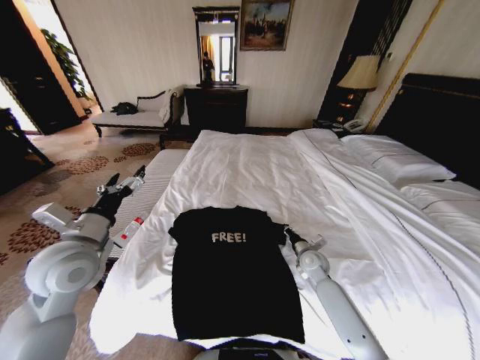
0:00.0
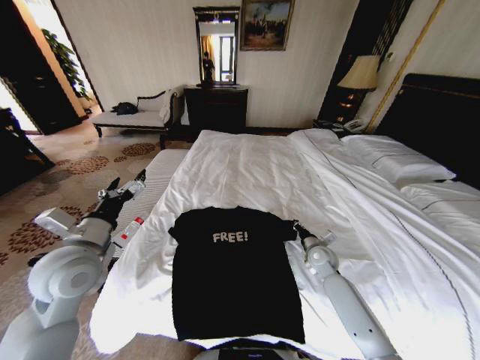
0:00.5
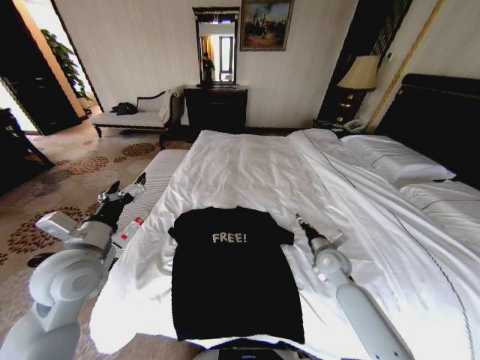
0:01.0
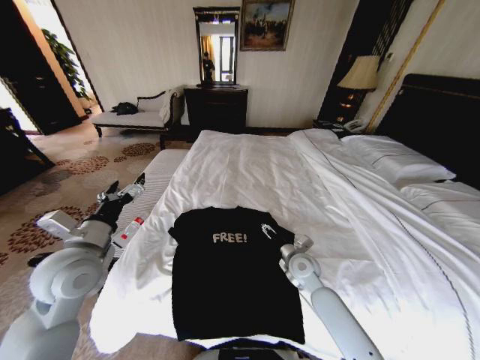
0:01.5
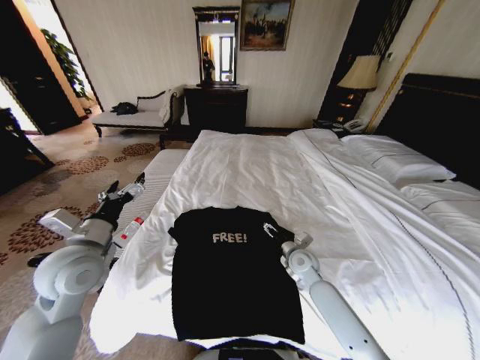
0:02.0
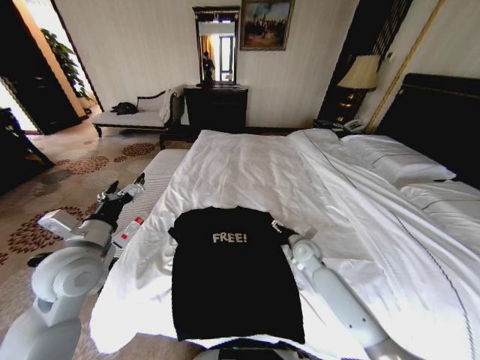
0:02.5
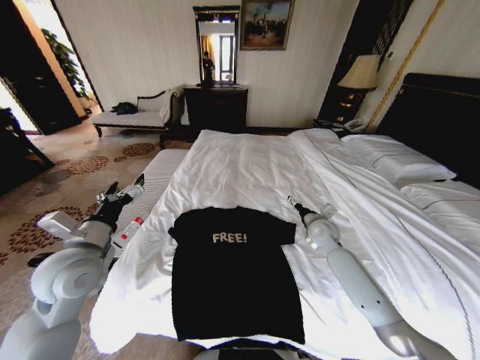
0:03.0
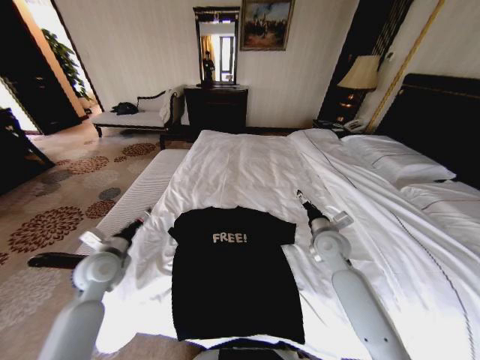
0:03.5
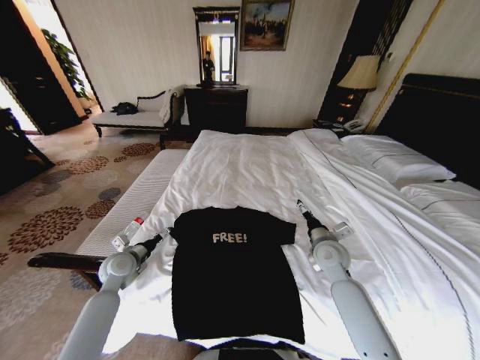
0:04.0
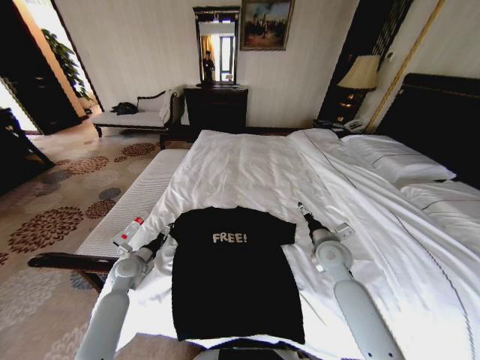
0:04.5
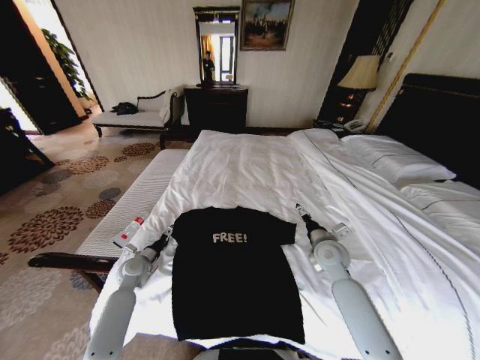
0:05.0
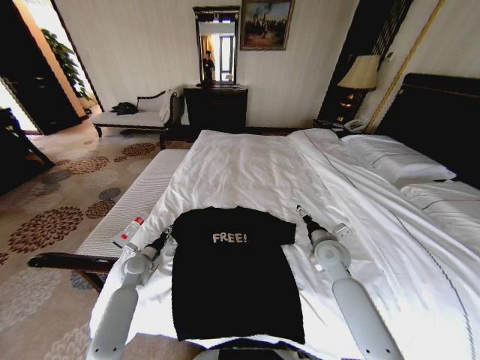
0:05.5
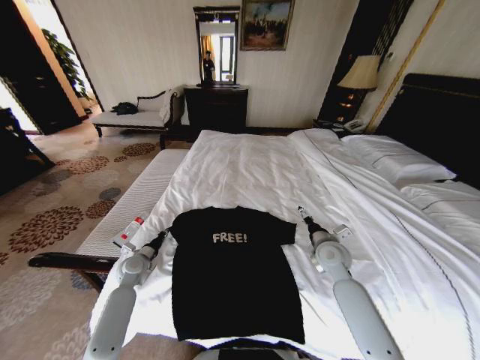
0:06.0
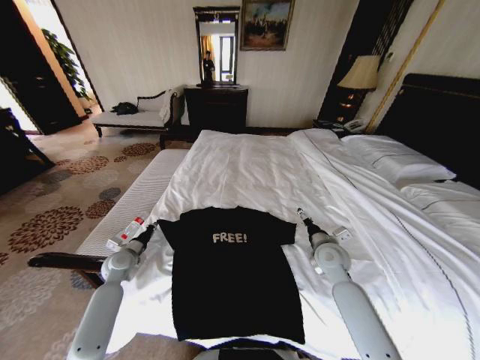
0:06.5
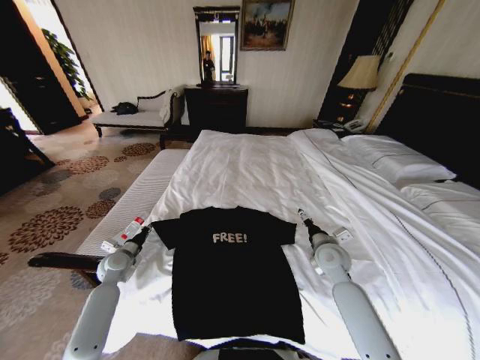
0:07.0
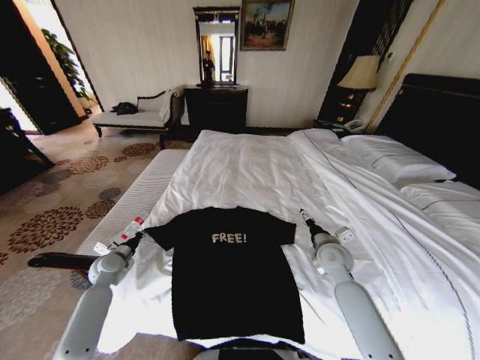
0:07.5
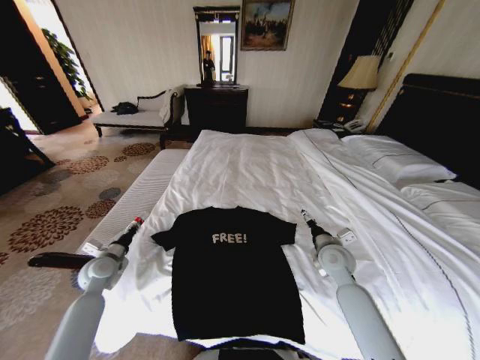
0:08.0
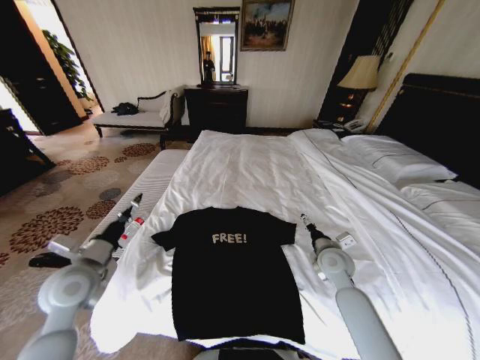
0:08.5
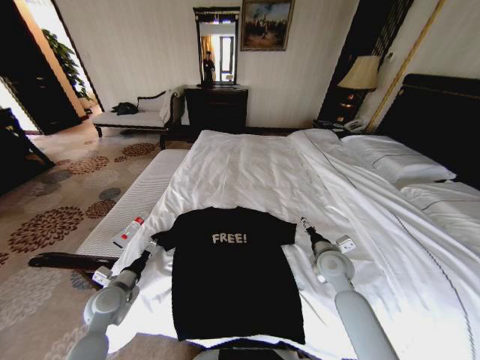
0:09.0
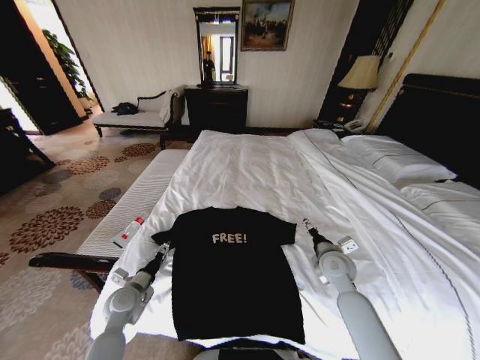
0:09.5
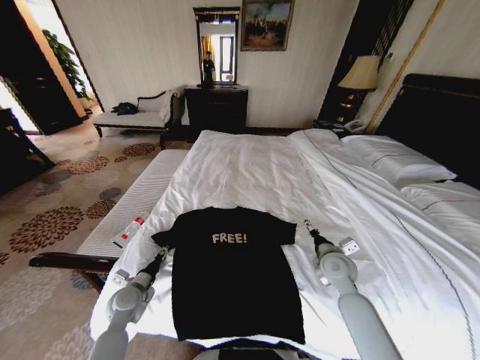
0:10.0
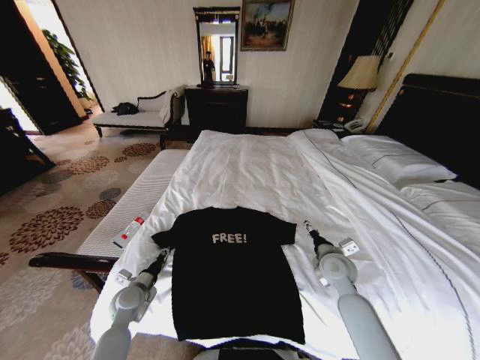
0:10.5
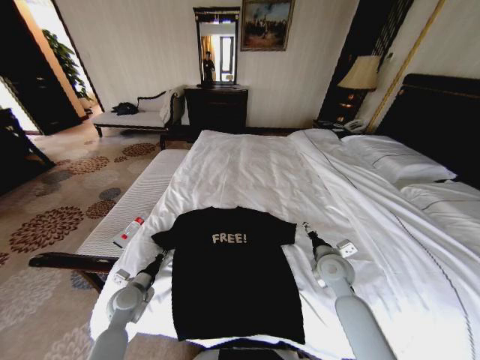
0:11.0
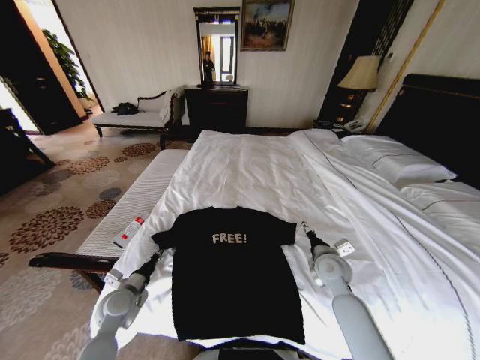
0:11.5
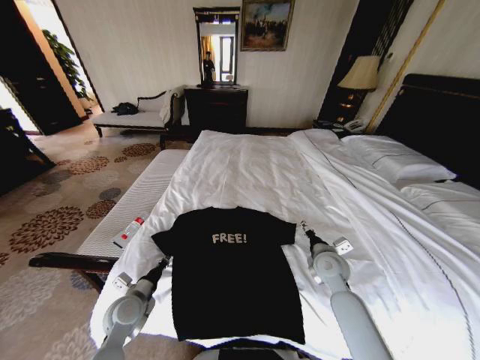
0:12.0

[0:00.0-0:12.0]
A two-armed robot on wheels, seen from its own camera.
Task of the whole recording: Fold the clothes on the bed.
0:00.0 to 0:02.0: The right gripper is displaced to the left by approximately 5 cm, and opens up.
0:02.0 to 0:04.0: The right gripper shifts approximately 10 cm upward and to the right, while the left gripper is displaced downward and forward by some 20 cm.
0:04.0 to 0:06.0: The left gripper heads downward, covering roughly 10 cm, and closes.
0:06.0 to 0:08.0: The left gripper travels to the left and upward by approximately 10 cm.
0:08.0 to 0:10.0: The left gripper moves to the right and backward, some 10 cm, goes upward and returns, some 10 cm each way, and opens, then closes again.
0:10.0 to 0:12.0: The left gripper closes its fingers.

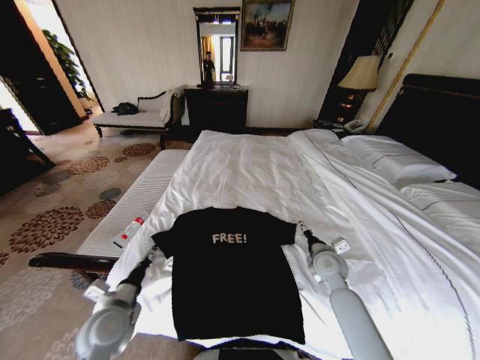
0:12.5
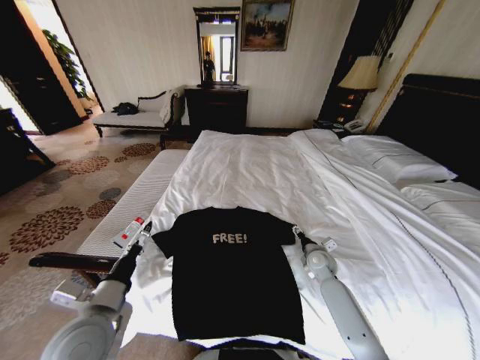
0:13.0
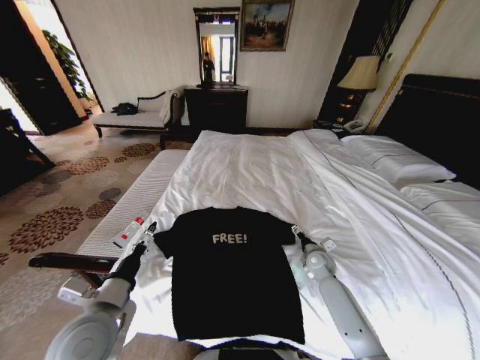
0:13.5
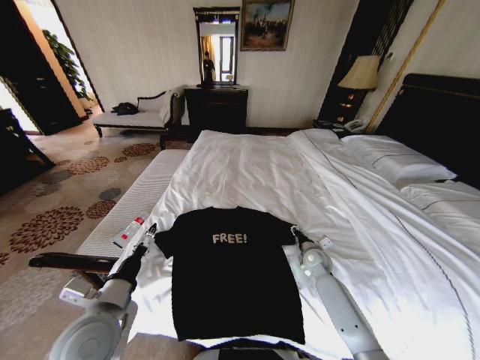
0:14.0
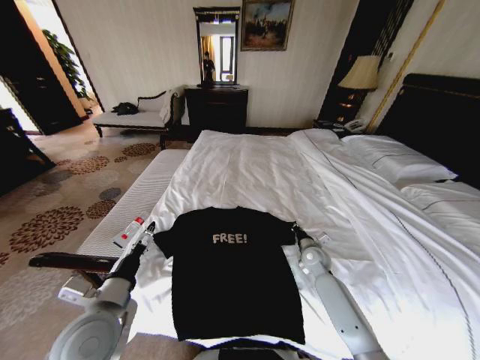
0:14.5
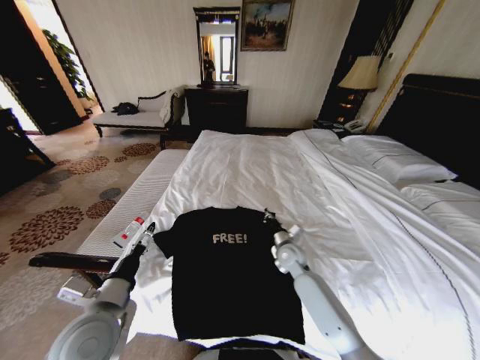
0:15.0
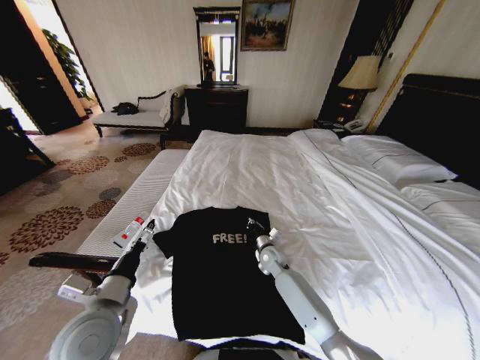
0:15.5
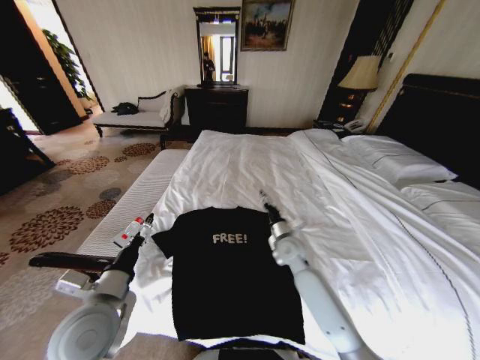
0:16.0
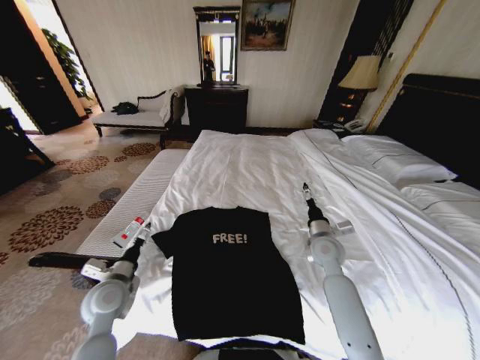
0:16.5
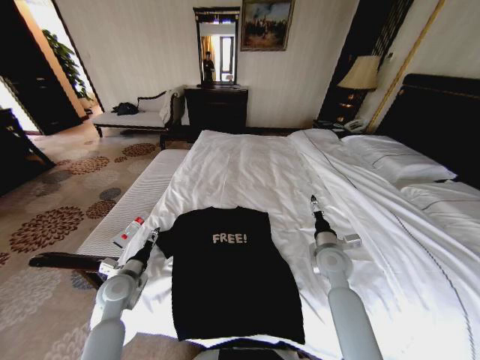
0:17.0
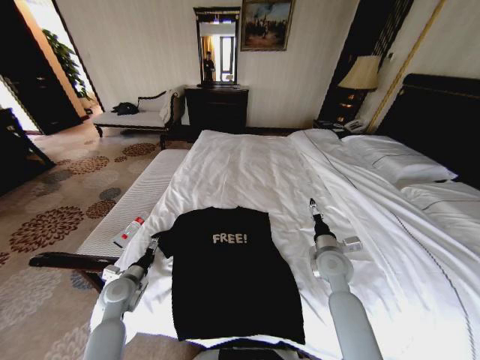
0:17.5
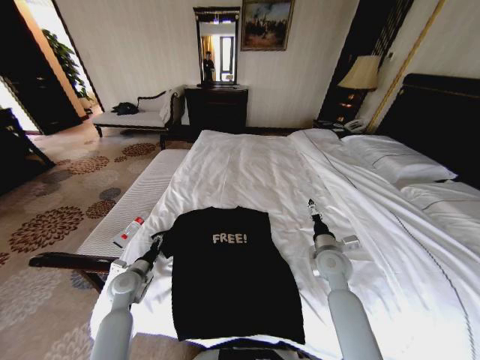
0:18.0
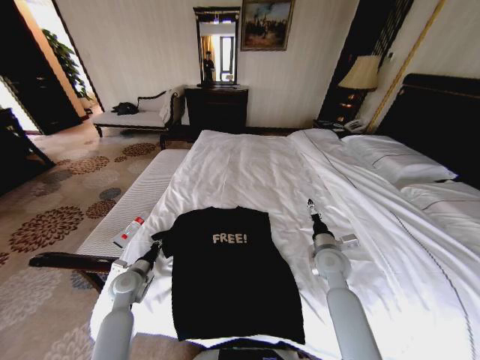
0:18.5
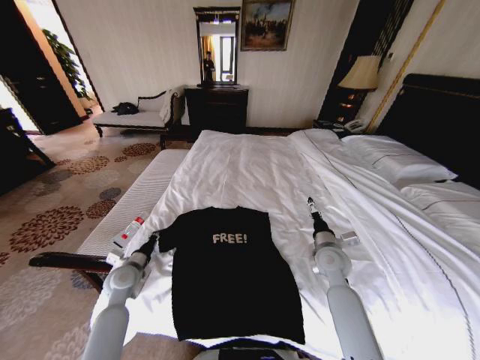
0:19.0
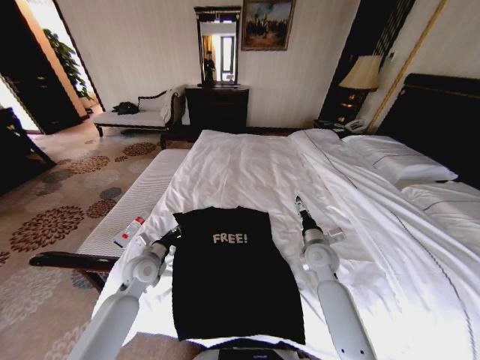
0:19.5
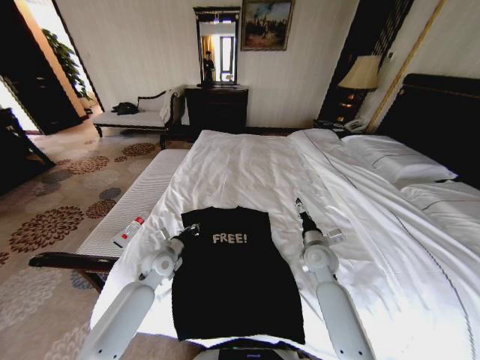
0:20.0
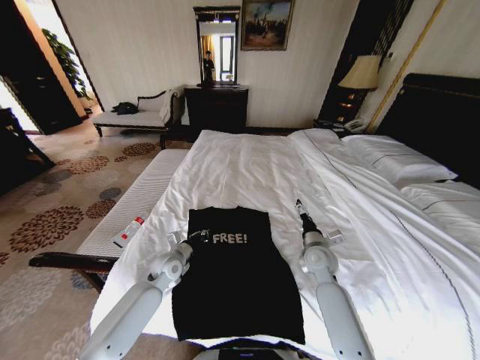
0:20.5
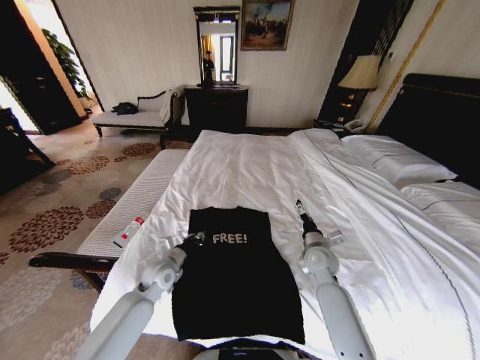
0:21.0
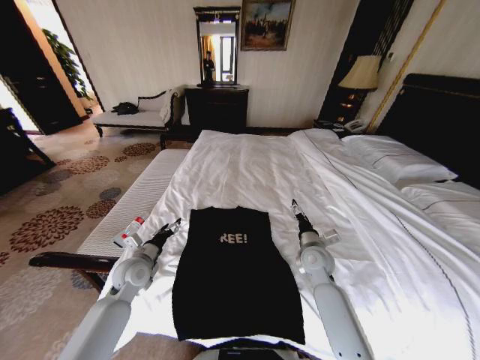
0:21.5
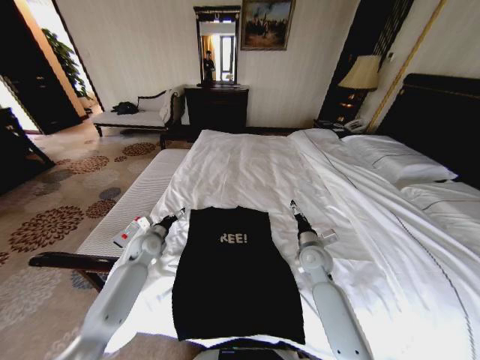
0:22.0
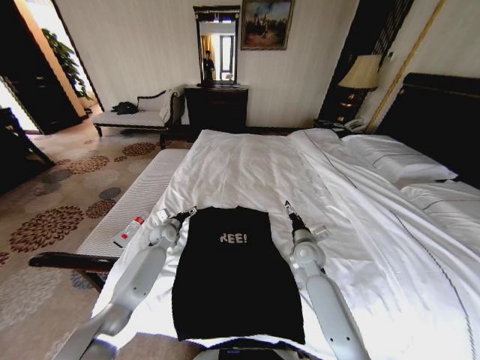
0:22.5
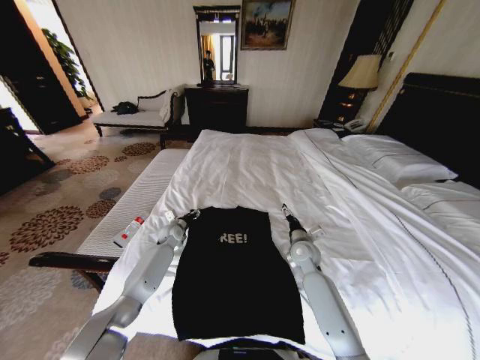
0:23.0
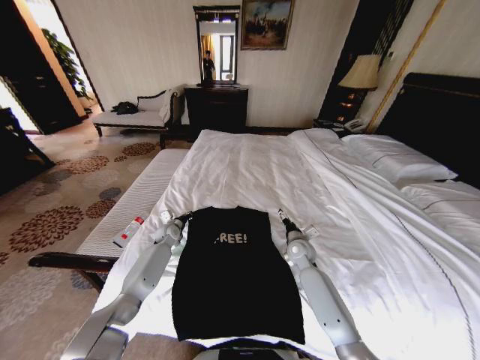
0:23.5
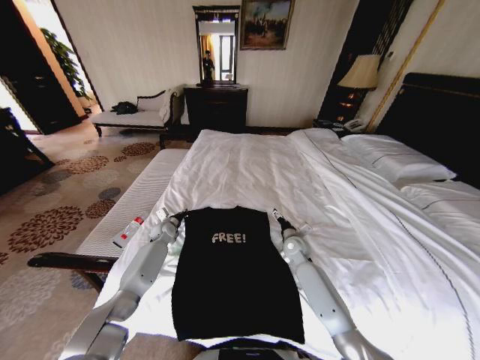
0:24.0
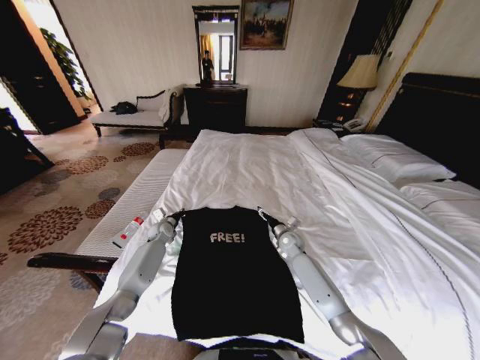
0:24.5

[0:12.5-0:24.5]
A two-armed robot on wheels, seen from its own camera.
Task of the whole recording: Fold the clothes on the bed.
0:12.5 to 0:14.5: The left gripper goes approximately 10 cm upward, and opens. Meanwhile the right gripper is displaced downward and forward by about 10 cm, and closes.
0:14.5 to 0:16.5: The left gripper travels forward, downward and to the left by some 15 cm, while the right gripper heads upward, covering approximately 10 cm, travels to the left and back again, some 15 cm each way, and opens.
0:16.5 to 0:18.5: The left gripper moves downward and forward, about 10 cm, and closes its fingers.
0:18.5 to 0:20.5: The left gripper moves to the right and forward, some 15 cm.
0:20.5 to 0:22.5: The left gripper heads forward, covering approximately 15 cm, and opens its fingers.
0:22.5 to 0:24.5: The left gripper changes place by roughly 5 cm, and closes, while the right gripper moves forward and downward, approximately 10 cm.

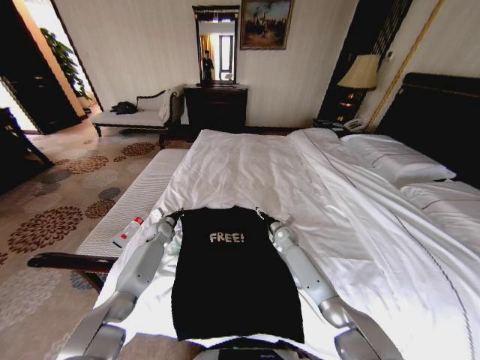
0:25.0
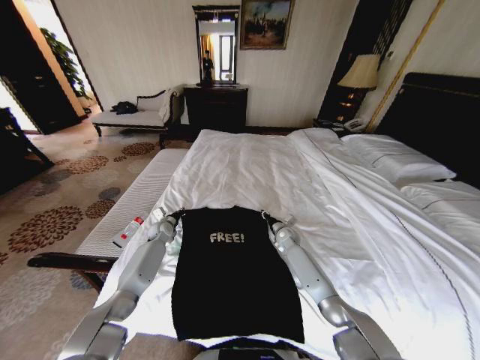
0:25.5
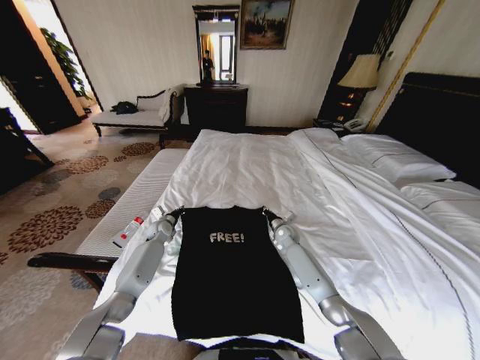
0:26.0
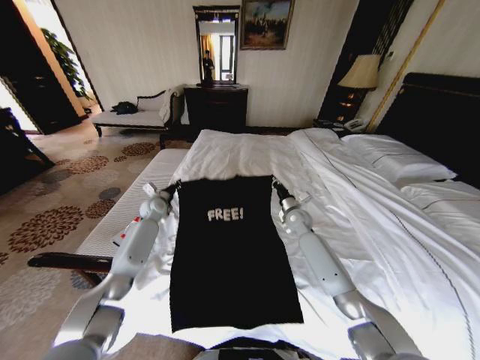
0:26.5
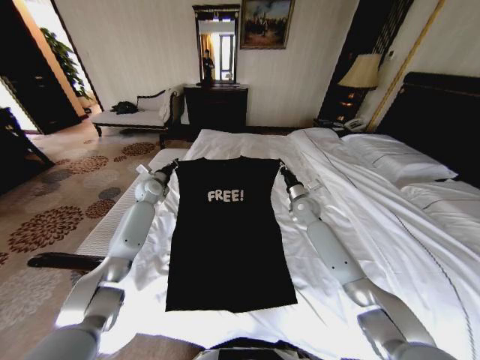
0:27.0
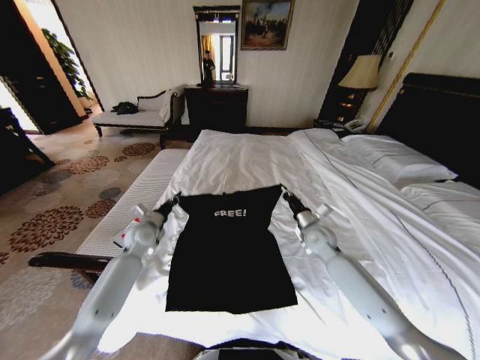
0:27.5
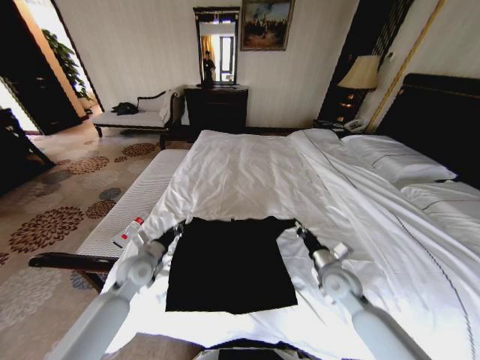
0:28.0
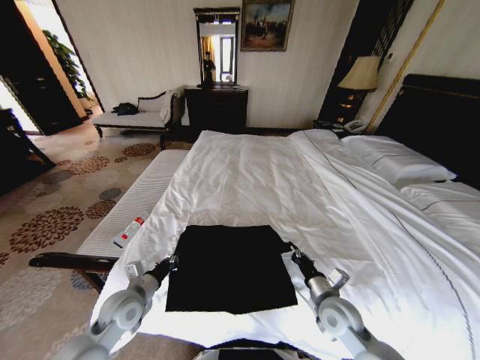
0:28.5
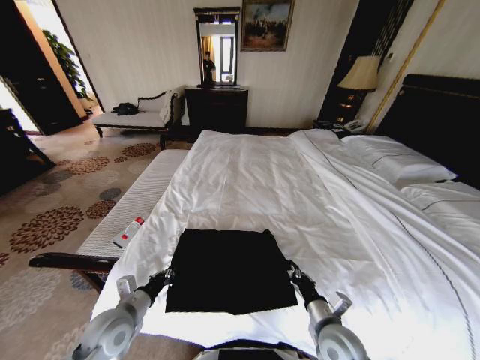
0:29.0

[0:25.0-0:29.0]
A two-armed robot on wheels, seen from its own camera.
Task of the whole recording: Fold the clothes on the bed.
0:25.0 to 0:27.0: The grippers both shift upward by roughly 15 cm. The right gripper closes up.
0:27.0 to 0:29.0: The grippers both shift backward by about 40 cm.
